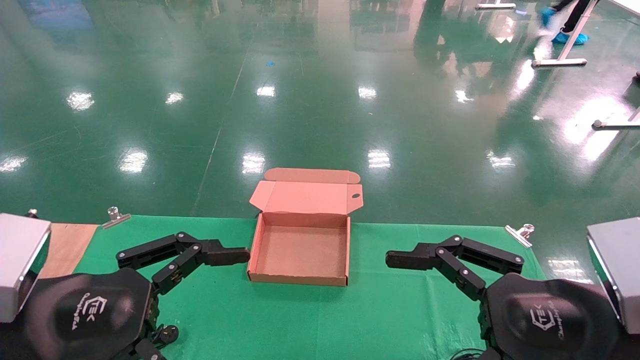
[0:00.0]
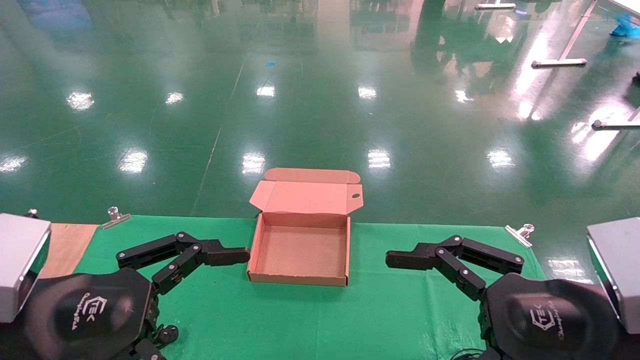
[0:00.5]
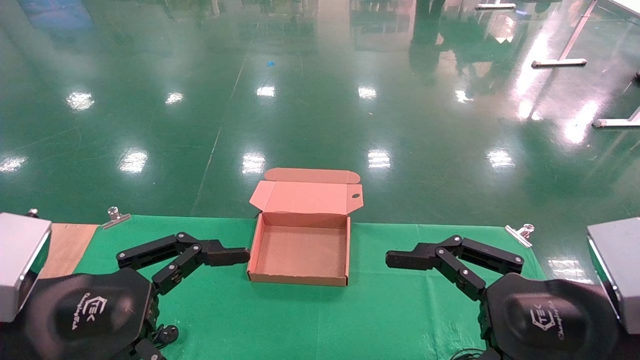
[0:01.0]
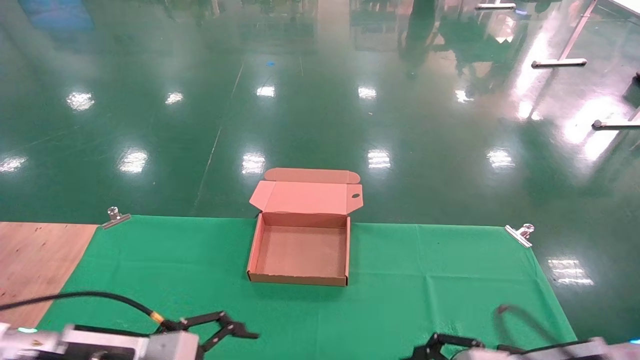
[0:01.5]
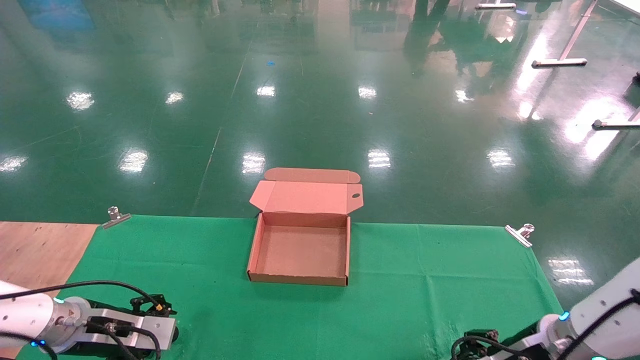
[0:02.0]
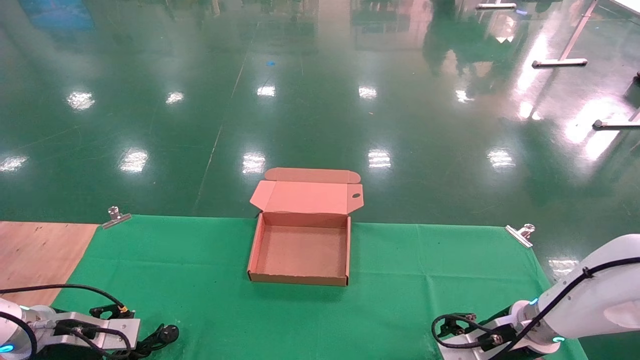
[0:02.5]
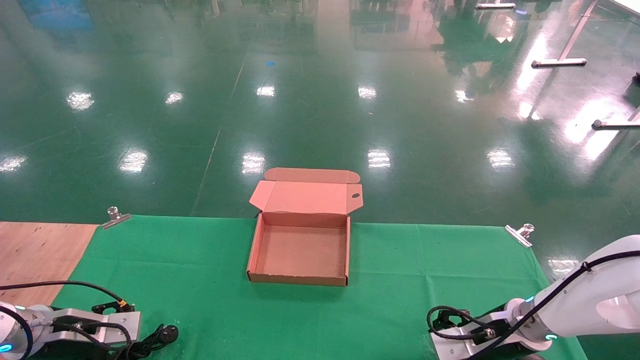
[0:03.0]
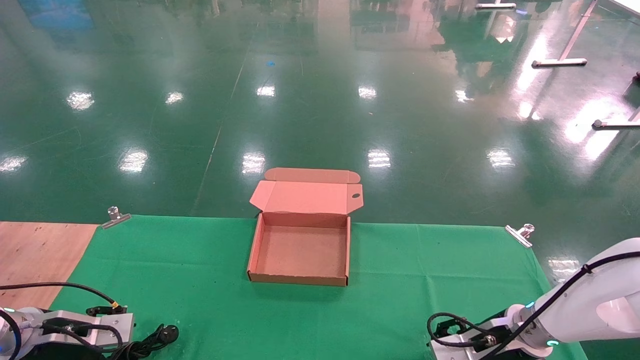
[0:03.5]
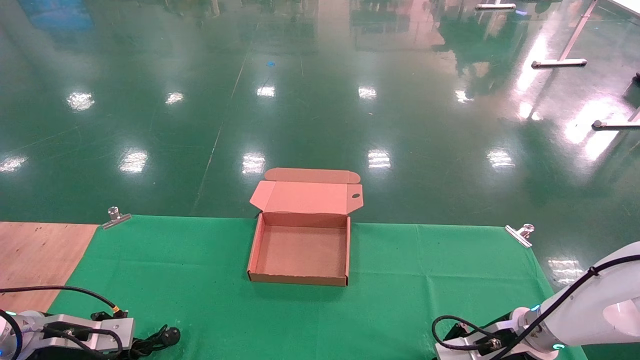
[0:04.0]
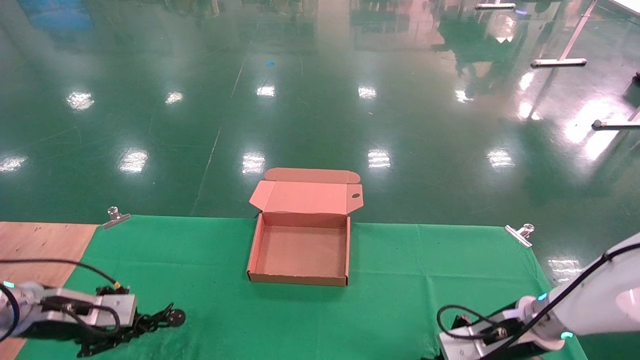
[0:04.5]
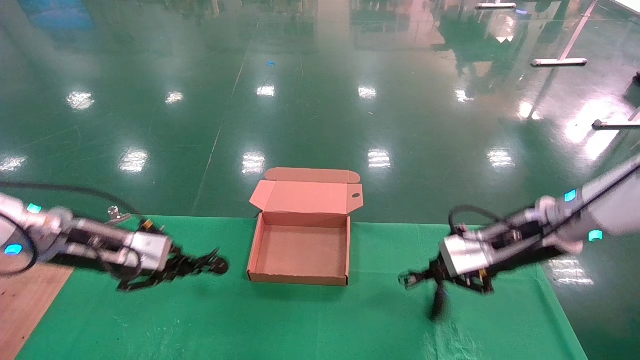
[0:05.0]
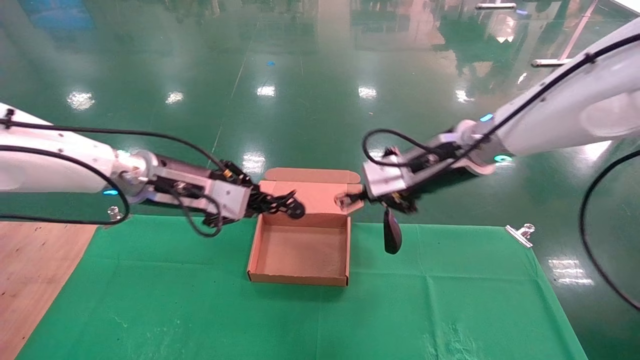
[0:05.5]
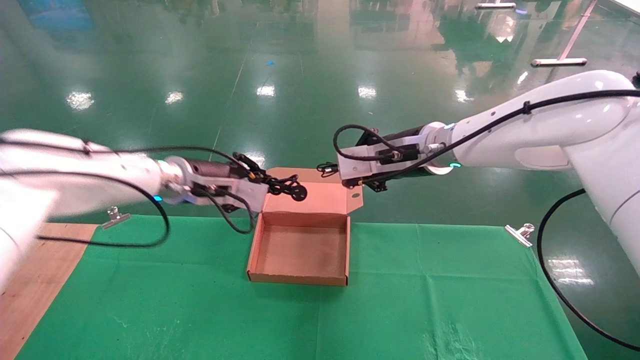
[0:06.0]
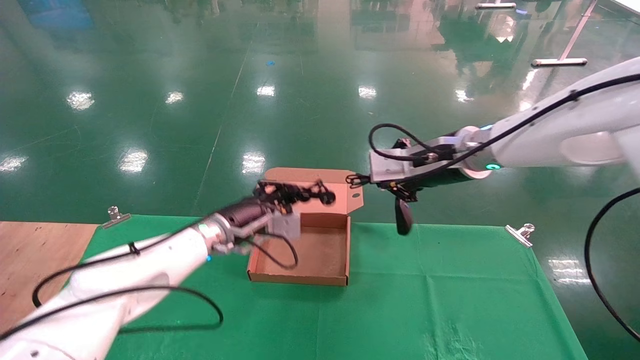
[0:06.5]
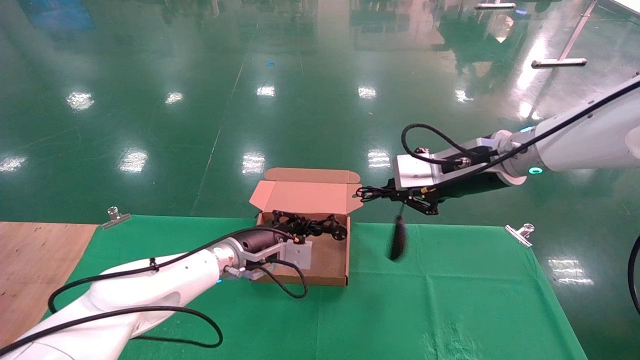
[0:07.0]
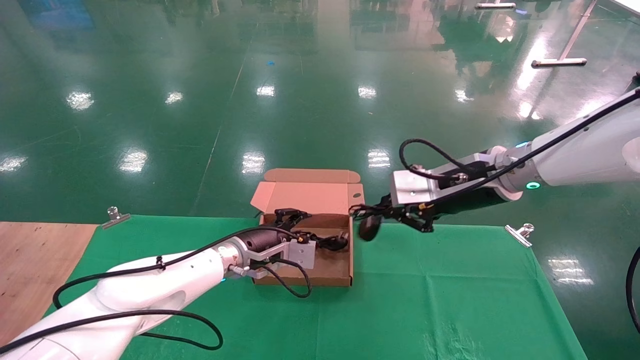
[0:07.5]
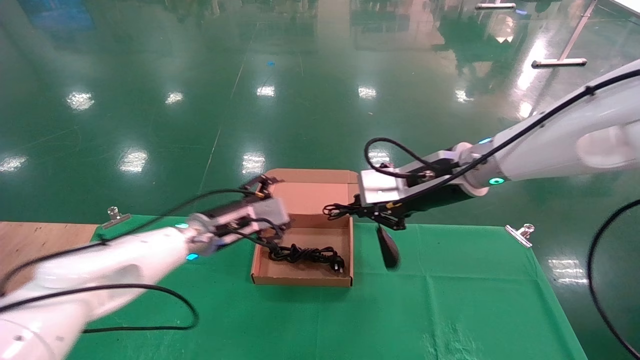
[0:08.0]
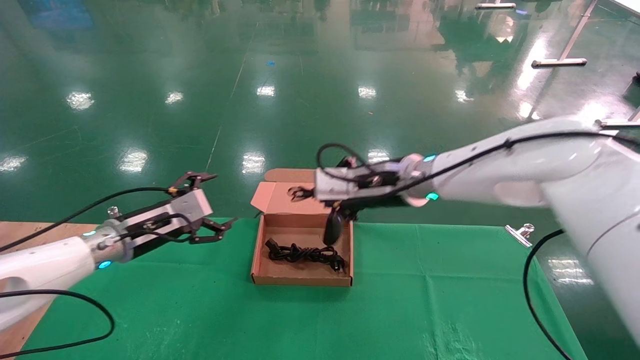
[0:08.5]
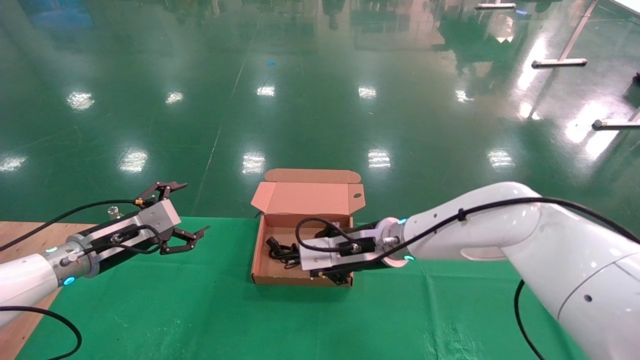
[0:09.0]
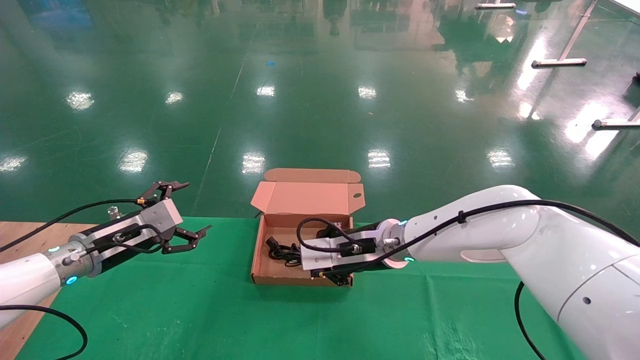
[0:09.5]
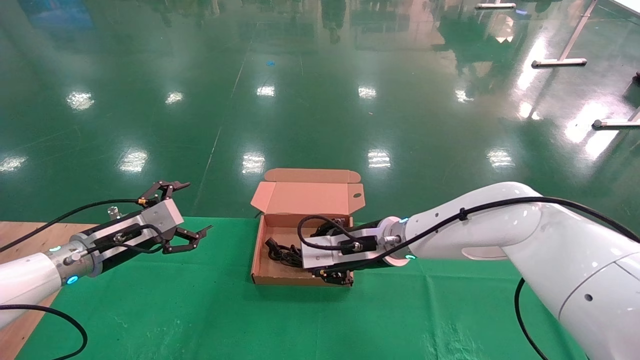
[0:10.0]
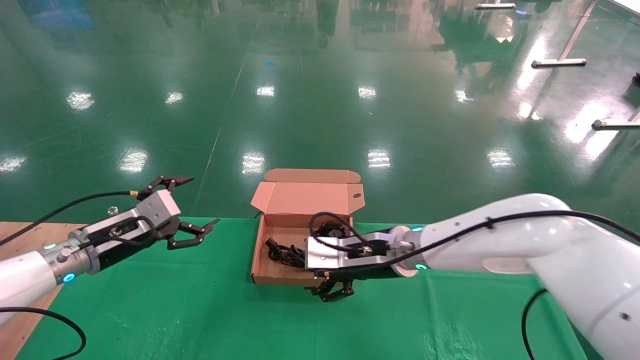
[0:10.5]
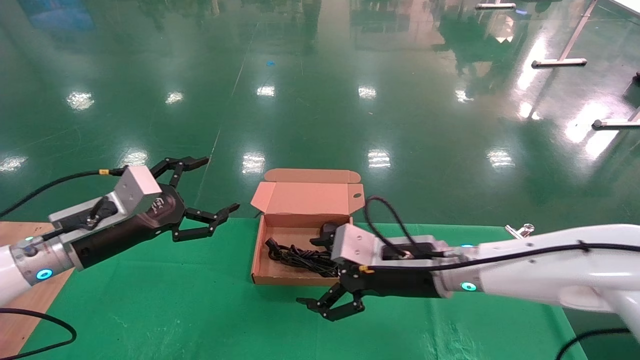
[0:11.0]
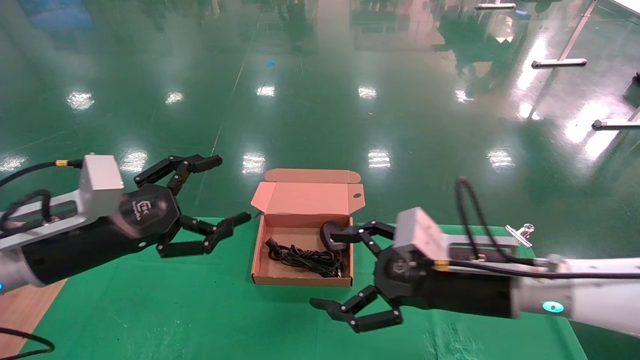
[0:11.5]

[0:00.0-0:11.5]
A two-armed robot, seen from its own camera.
Step, 0:01.5 to 0:05.0: Grab and lift both the mouse and power cord from the accessory packaging area at the same time.
Step, 0:05.5 to 0:11.0: Place the mouse and power cord into the box.
0:00.0 to 0:02.0: The right gripper shifts some 25 cm forward and downward. The left gripper shifts roughly 25 cm forward, downward and to the left.
0:02.0 to 0:04.0: The right gripper moves some 5 cm, and closes up; the left gripper shifts some 10 cm to the left, and closes up.
0:04.0 to 0:06.0: The left gripper travels to the right, upward and forward by about 30 cm. Meanwhile the right gripper goes approximately 30 cm upward and to the left, and closes.
0:06.0 to 0:07.5: The left gripper goes some 15 cm downward and to the right; the right gripper is displaced to the right by about 5 cm.
0:07.5 to 0:09.5: The right gripper travels to the left and downward by some 15 cm, while the left gripper shifts some 20 cm to the left, and opens up.
0:09.5 to 0:11.5: The left gripper shifts some 15 cm backward, upward and to the right. The right gripper heads backward and to the right, covering approximately 15 cm, and opens up.

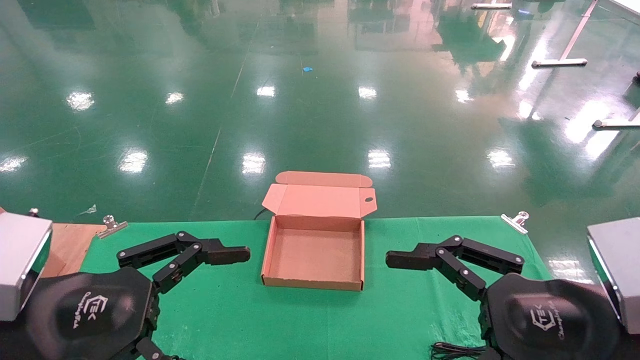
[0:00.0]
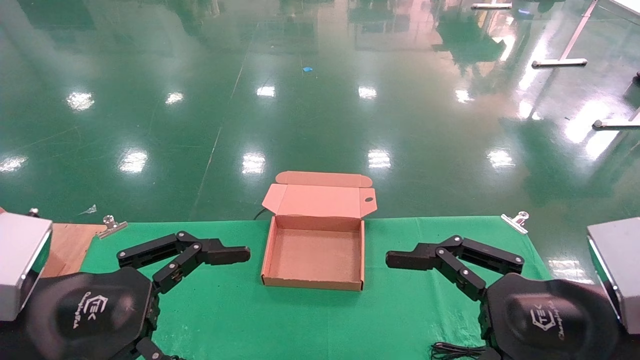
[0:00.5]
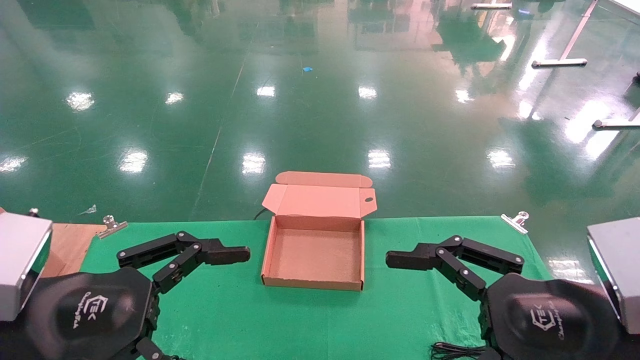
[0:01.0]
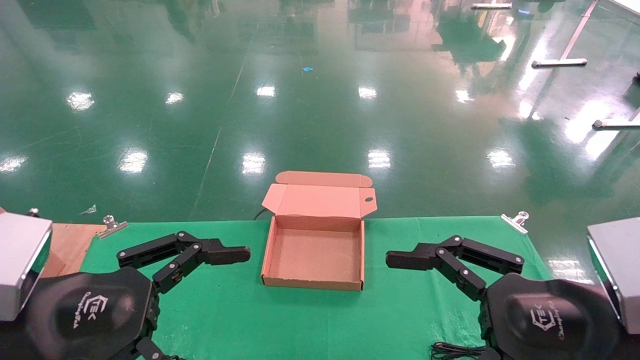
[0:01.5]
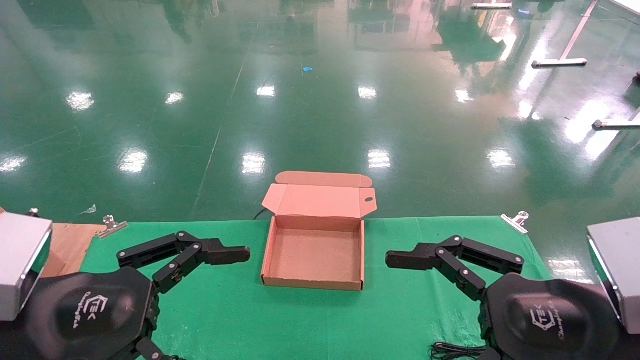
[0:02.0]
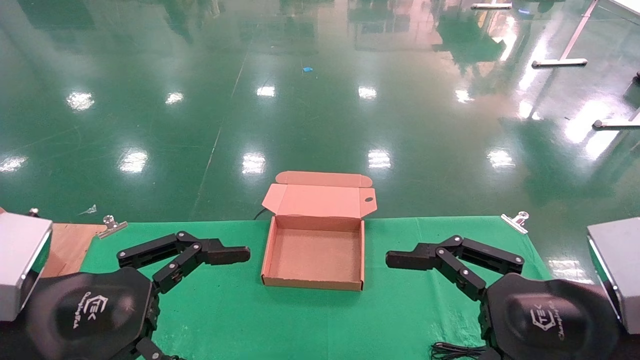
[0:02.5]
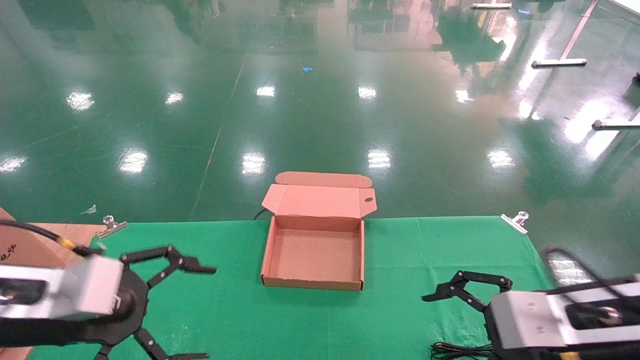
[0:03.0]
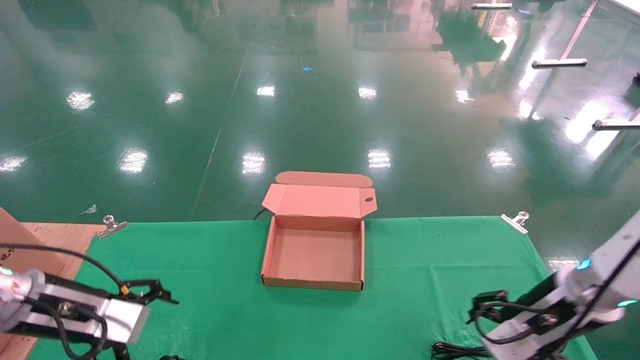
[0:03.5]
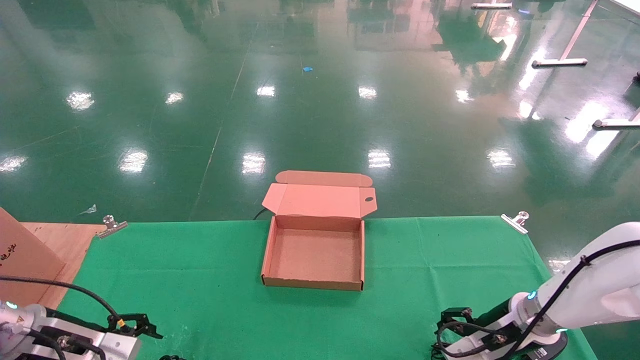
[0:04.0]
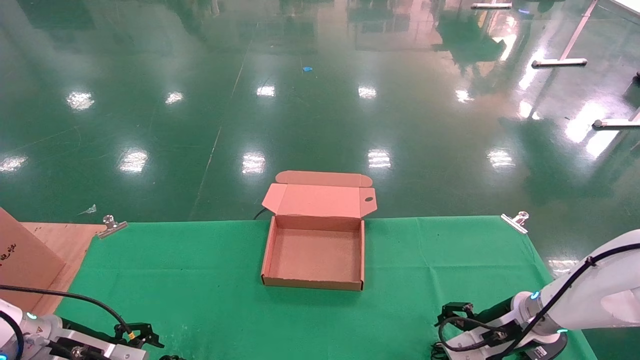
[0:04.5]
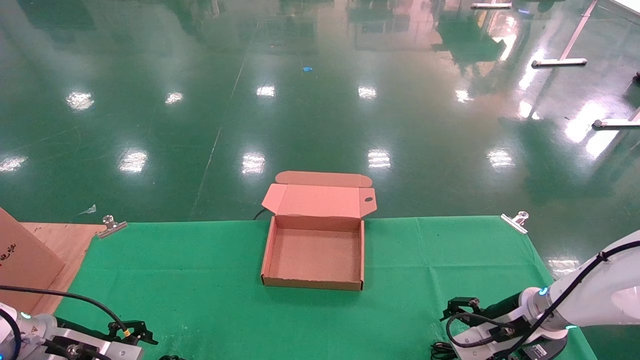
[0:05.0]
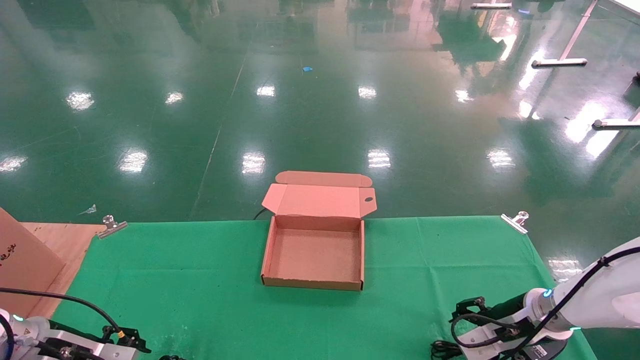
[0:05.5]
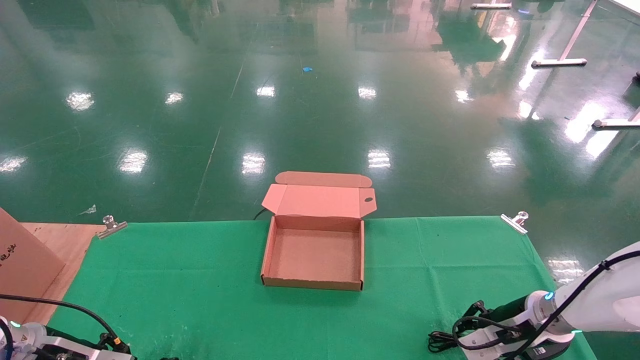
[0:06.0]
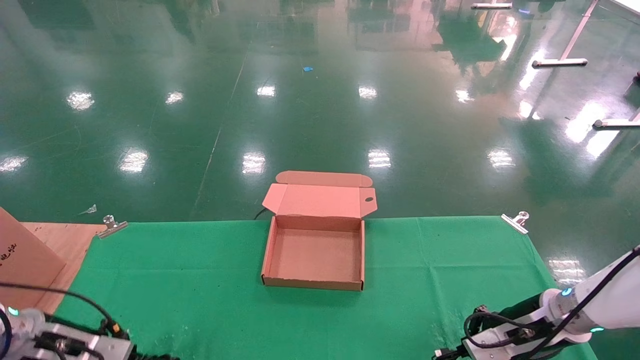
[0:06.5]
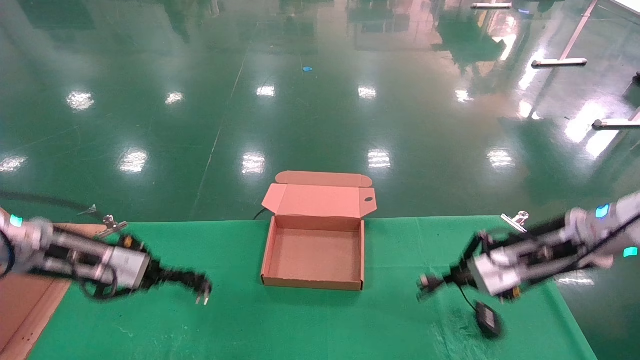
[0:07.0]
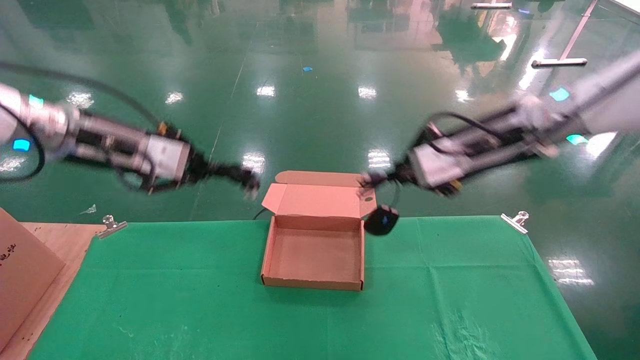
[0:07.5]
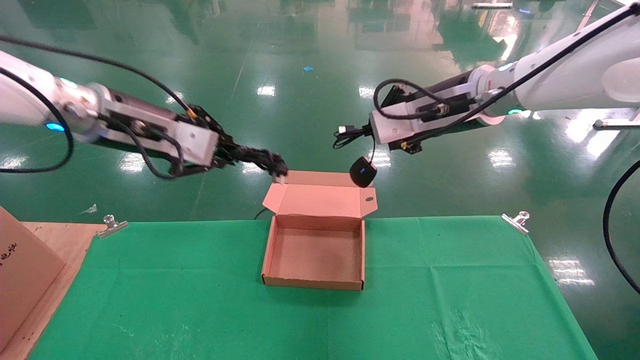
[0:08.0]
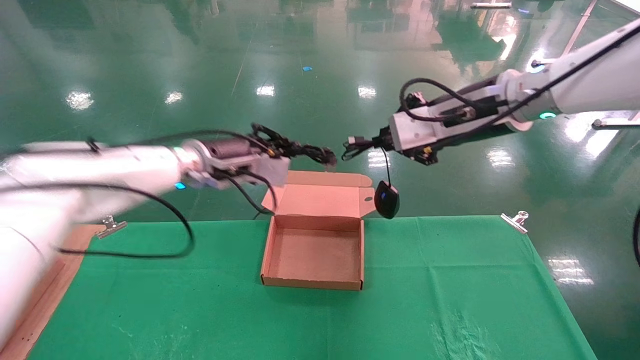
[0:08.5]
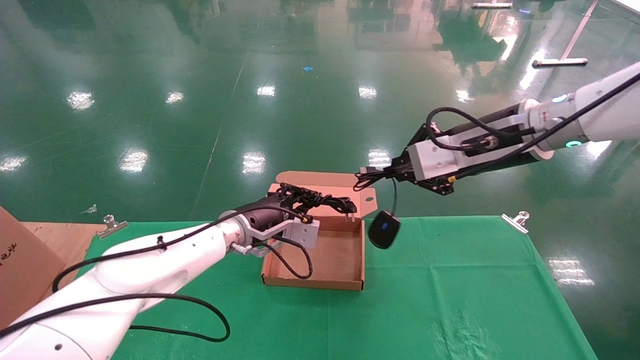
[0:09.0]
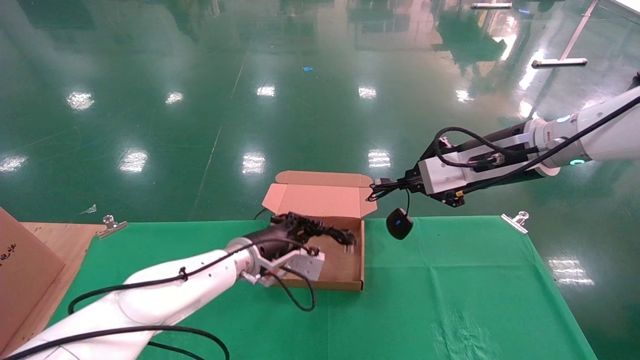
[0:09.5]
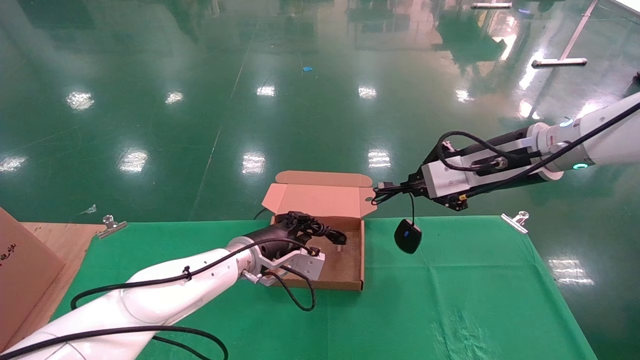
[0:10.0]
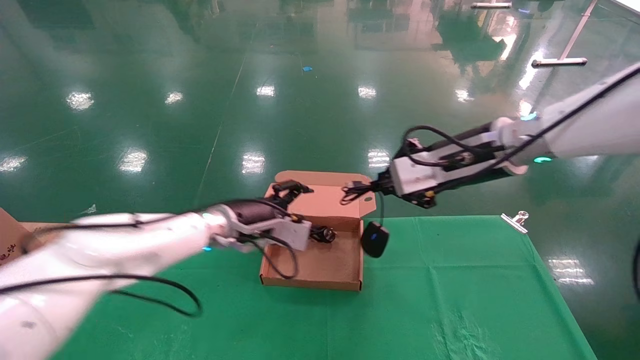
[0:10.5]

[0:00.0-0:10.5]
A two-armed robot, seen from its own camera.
Step, 0:02.5 to 0:06.0: Grab and lift both the mouse and power cord from the accessory packaging area at the same time.
0:00.0 to 0:02.0: Both grippers stay about where they are.
0:02.0 to 0:04.0: The left gripper travels forward, downward and to the left by about 25 cm, while the right gripper is displaced forward and downward by approximately 25 cm.
0:04.0 to 0:06.5: The right gripper closes. Meanwhile the left gripper closes its fingers.
0:06.5 to 0:08.5: The left gripper shifts some 35 cm to the right, upward and forward. The right gripper is displaced upward and to the left by roughly 30 cm.
0:08.5 to 0:10.5: The left gripper heads downward, covering some 10 cm, and opens.
